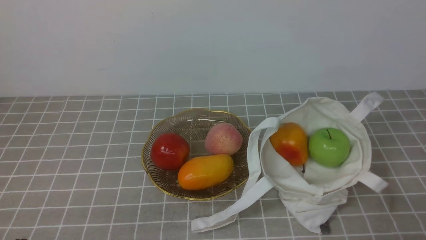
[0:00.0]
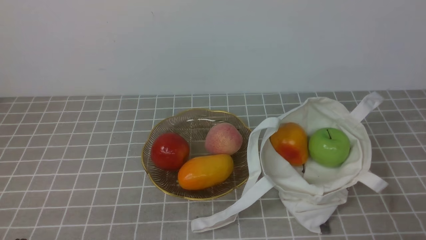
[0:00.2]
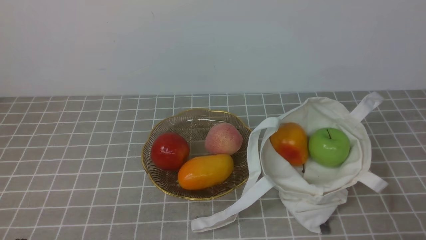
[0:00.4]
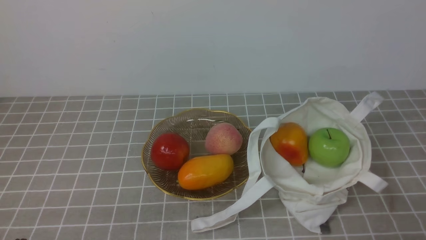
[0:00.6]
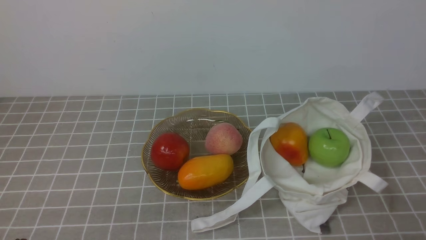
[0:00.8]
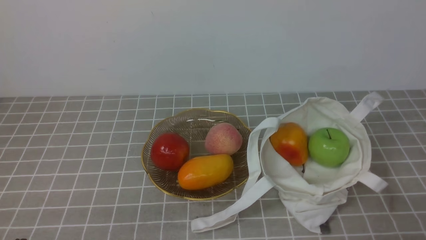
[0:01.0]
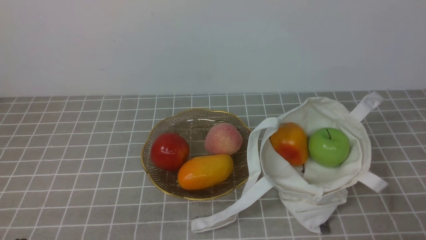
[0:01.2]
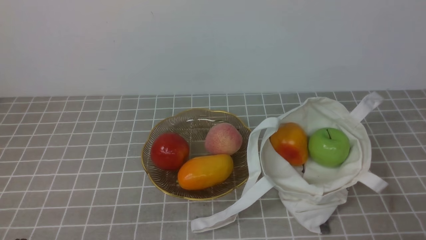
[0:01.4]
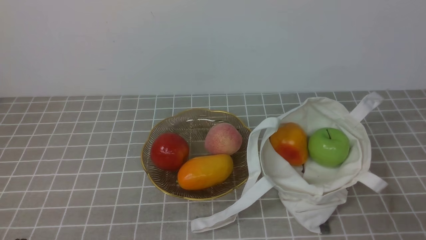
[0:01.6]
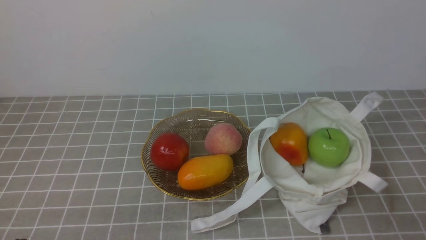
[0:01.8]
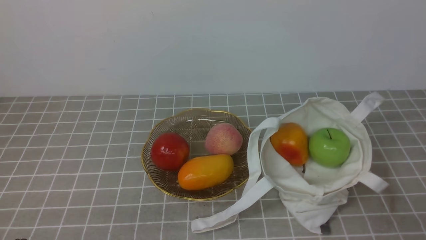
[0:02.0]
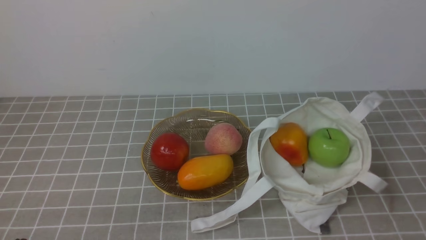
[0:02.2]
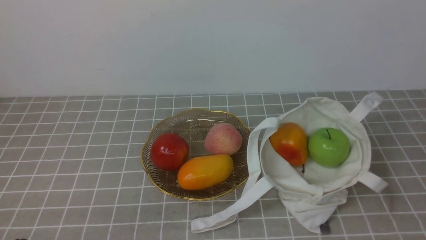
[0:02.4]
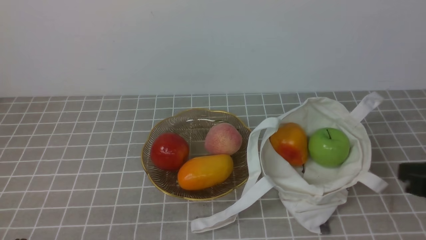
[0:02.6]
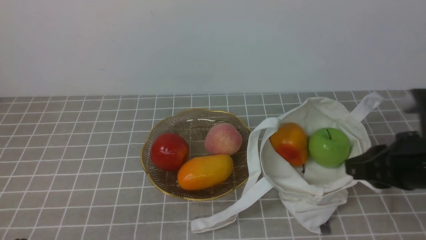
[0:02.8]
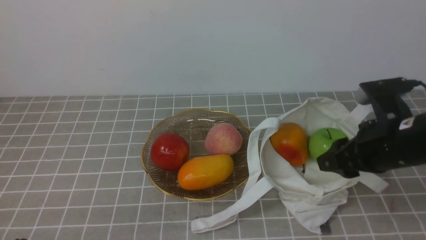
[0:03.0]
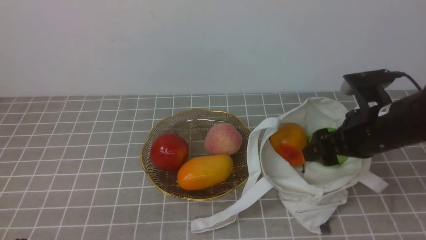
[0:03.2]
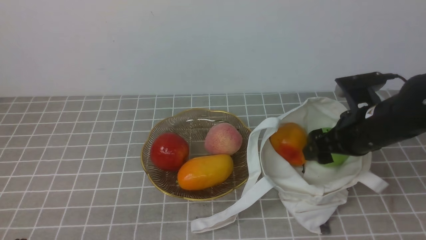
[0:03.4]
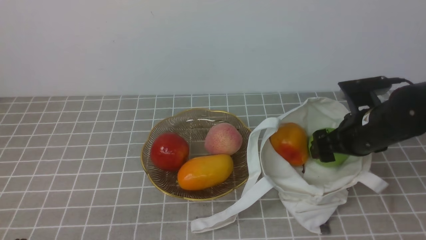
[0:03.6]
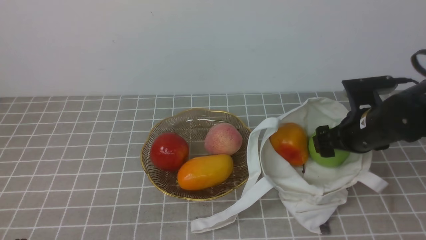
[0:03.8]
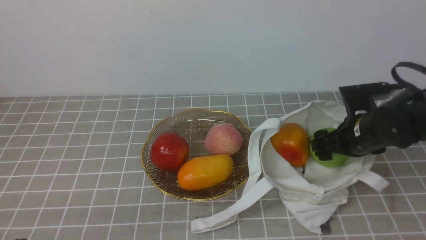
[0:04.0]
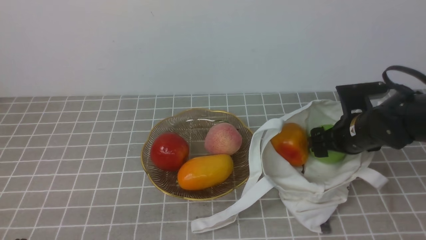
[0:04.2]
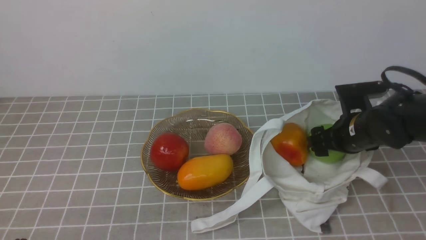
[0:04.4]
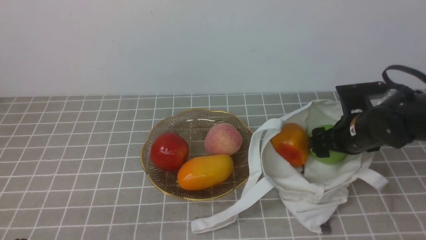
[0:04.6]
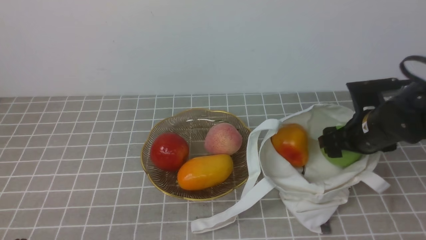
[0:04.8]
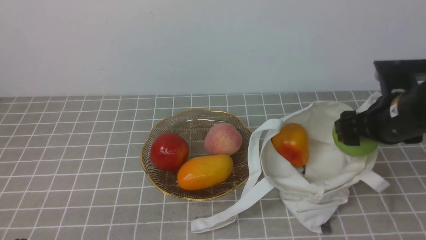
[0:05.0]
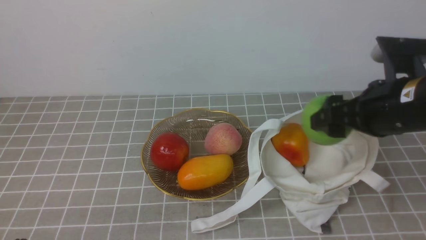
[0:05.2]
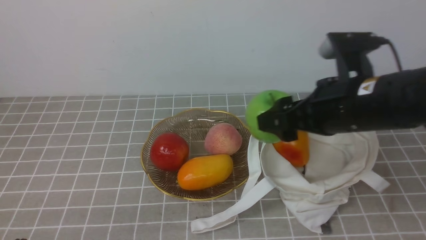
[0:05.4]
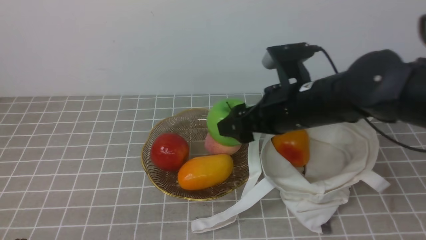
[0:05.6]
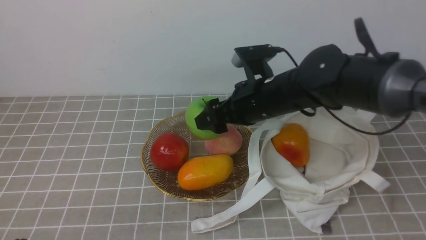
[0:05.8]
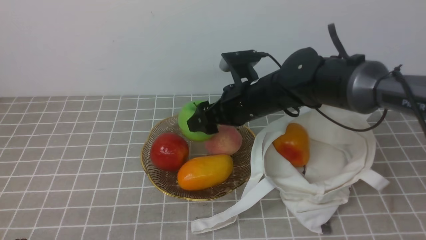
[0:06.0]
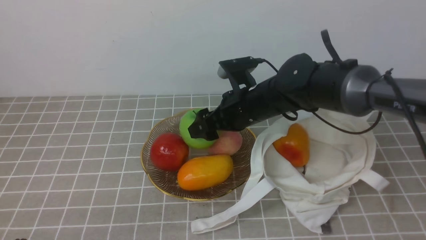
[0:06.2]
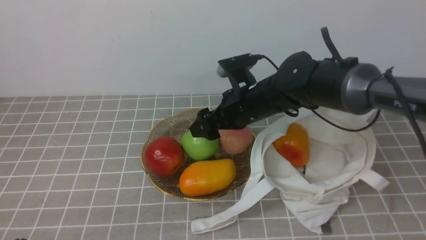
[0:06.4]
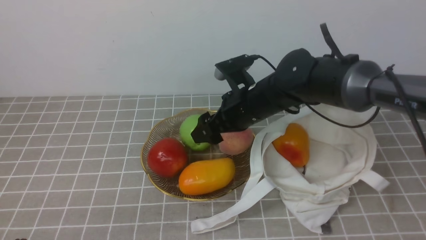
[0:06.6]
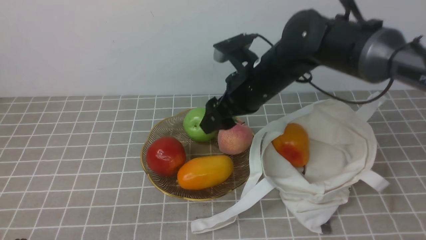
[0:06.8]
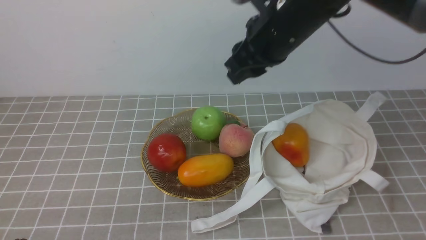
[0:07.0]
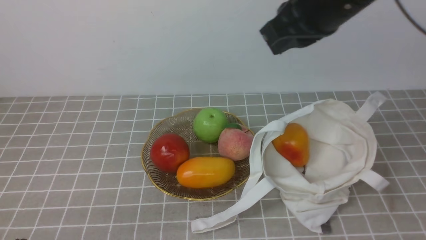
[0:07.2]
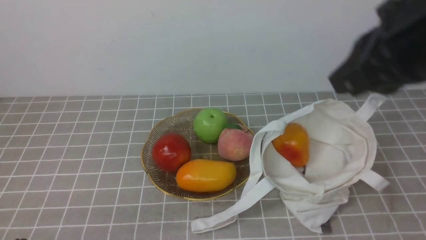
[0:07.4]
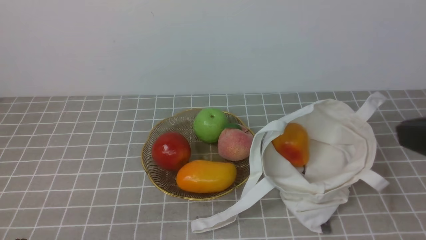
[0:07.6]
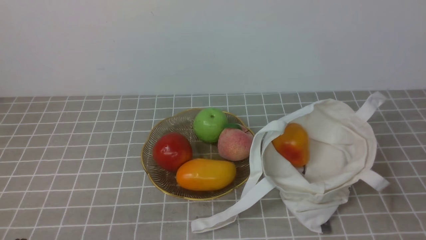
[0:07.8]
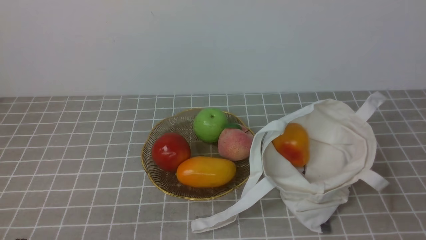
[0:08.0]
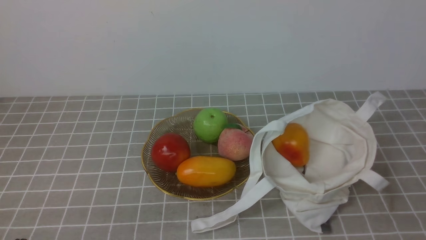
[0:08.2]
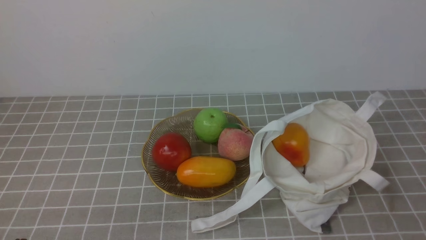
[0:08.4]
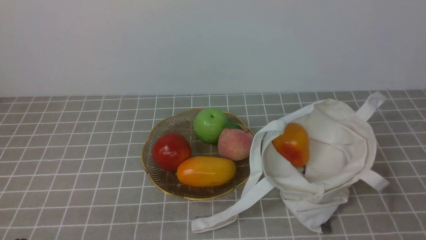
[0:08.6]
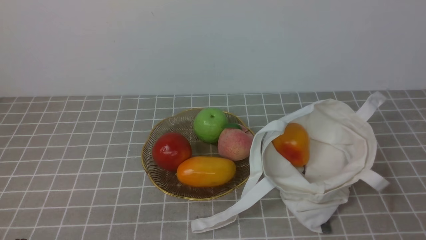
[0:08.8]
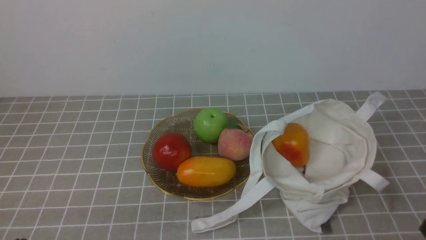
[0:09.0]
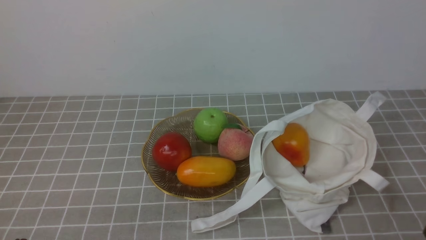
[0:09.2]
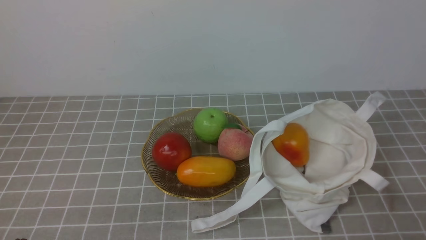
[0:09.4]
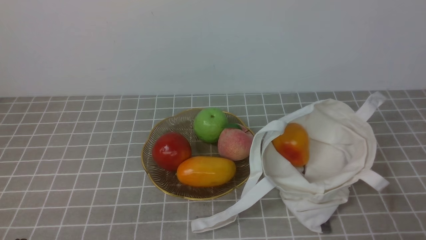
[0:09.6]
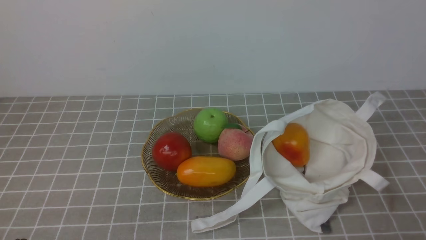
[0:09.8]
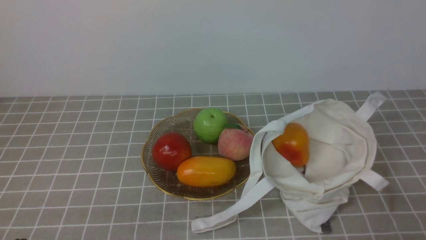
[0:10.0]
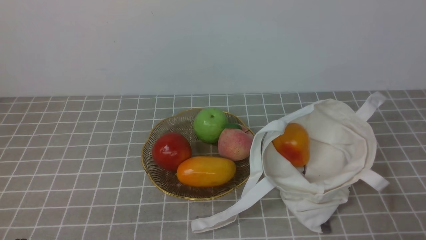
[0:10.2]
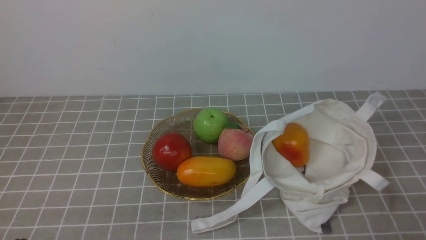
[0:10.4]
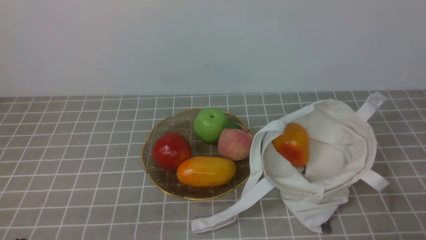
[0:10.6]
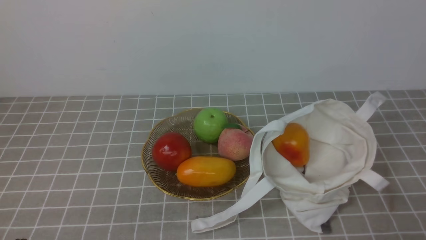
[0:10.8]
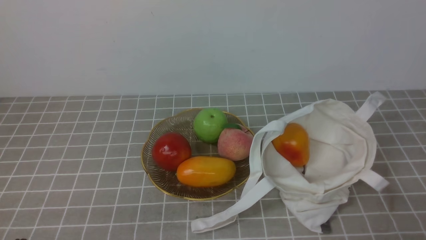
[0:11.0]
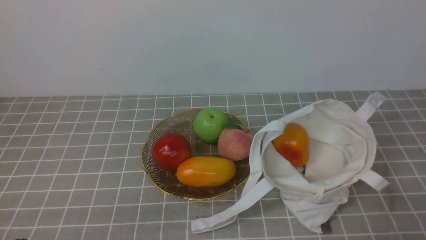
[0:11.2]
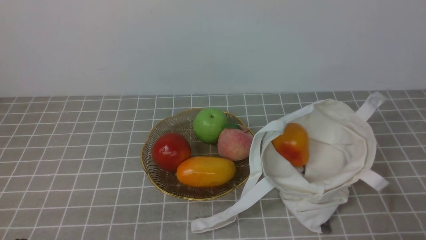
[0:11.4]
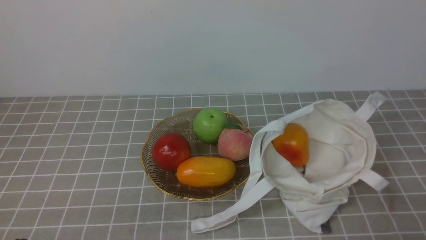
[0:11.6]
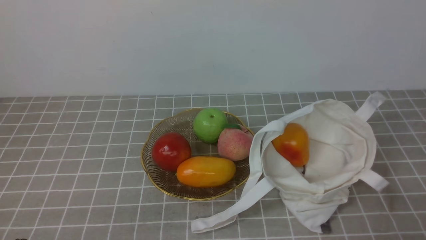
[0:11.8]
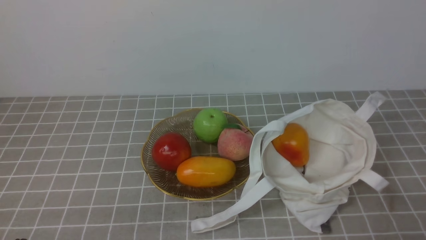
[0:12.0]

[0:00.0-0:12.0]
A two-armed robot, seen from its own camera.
Step, 0:00.0 to 0:04.6: use the right arm to grab an apple from the bag.
Step, 0:04.8 to 0:06.4: use the right arm to put the apple into the empty plate on the left.
0:01.6 to 0:03.0: The right gripper travels forward by approximately 20 cm, and opens its fingers.
0:03.0 to 0:04.4: The right gripper goes roughly 15 cm forward and downward, and opens up.
0:04.4 to 0:06.0: The right gripper goes some 20 cm to the left.
0:06.0 to 0:07.6: The right gripper moves backward, to the right and upward, about 35 cm, and closes its fingers.
0:07.6 to 0:09.0: The right gripper is displaced downward by roughly 15 cm.
0:10.4 to 0:12.0: Both grippers stay put.
